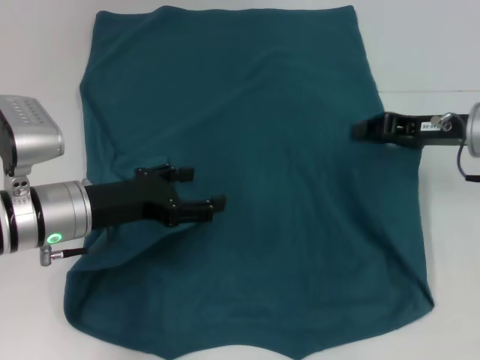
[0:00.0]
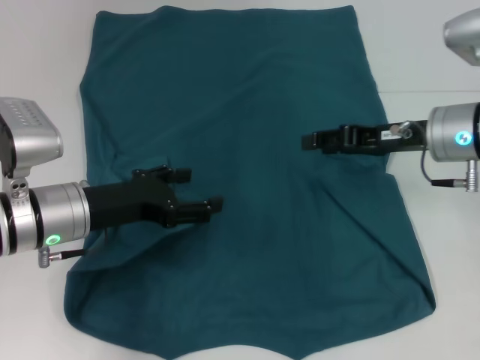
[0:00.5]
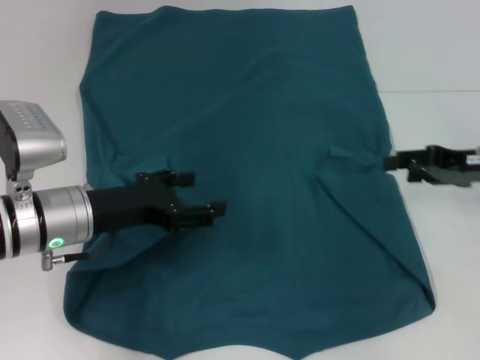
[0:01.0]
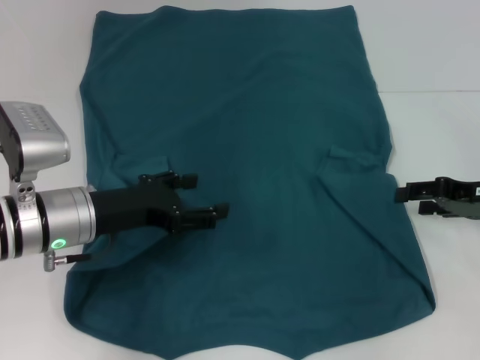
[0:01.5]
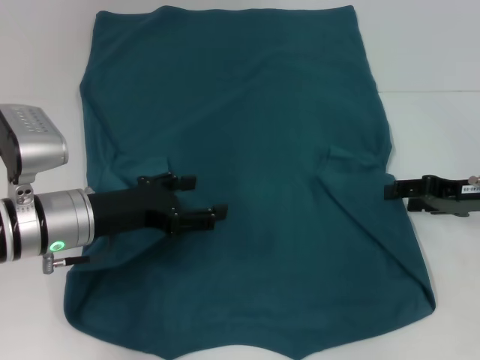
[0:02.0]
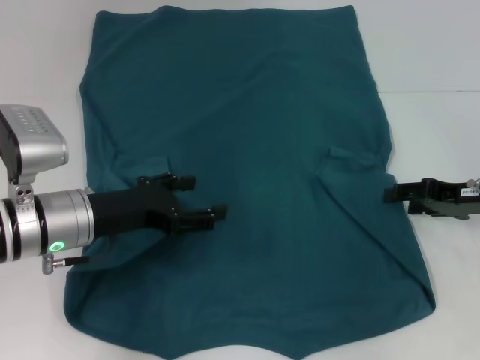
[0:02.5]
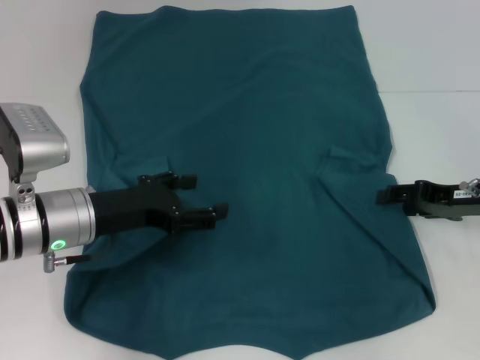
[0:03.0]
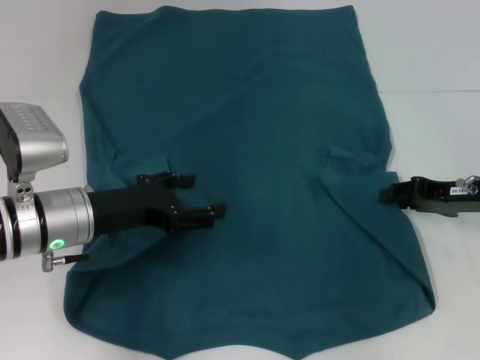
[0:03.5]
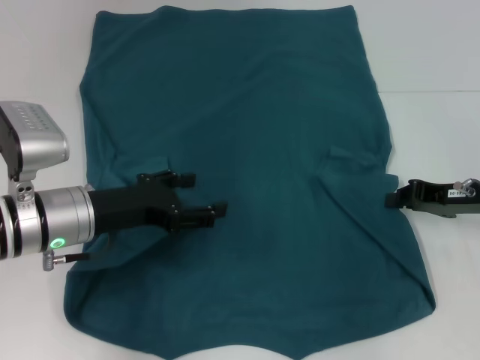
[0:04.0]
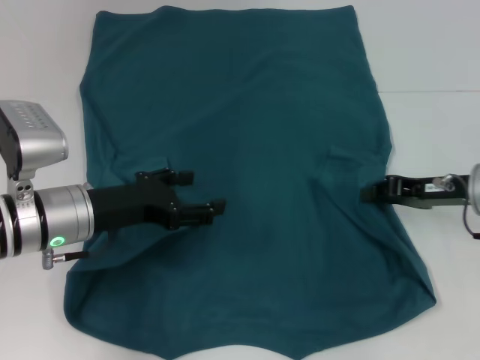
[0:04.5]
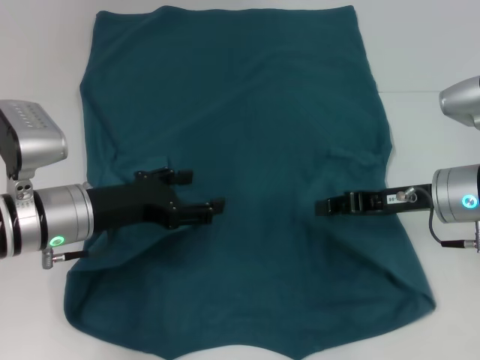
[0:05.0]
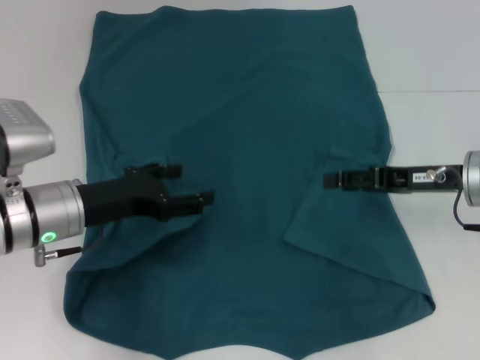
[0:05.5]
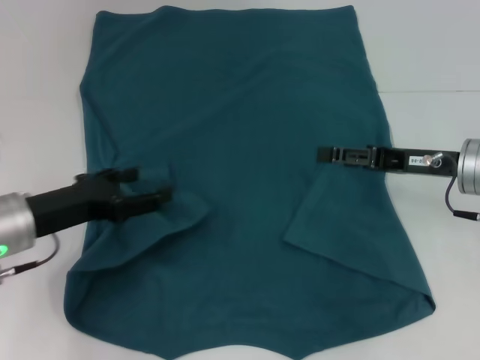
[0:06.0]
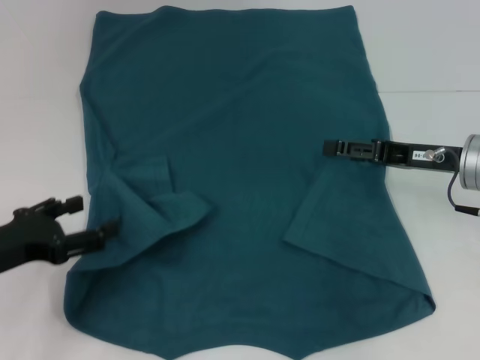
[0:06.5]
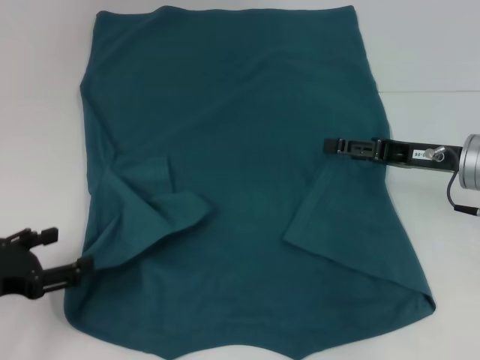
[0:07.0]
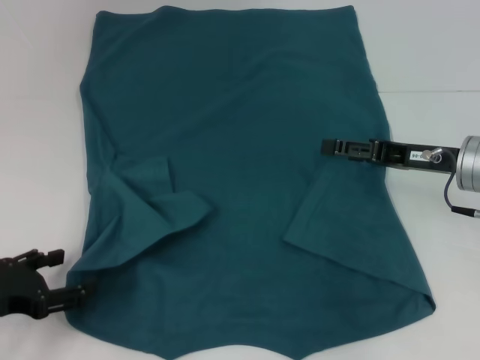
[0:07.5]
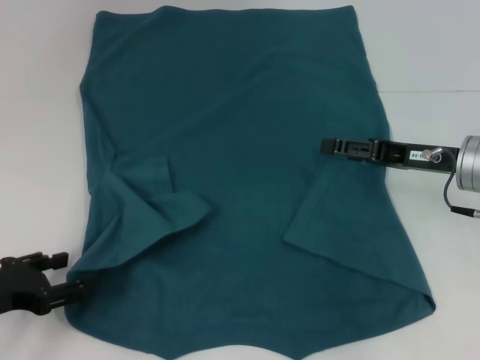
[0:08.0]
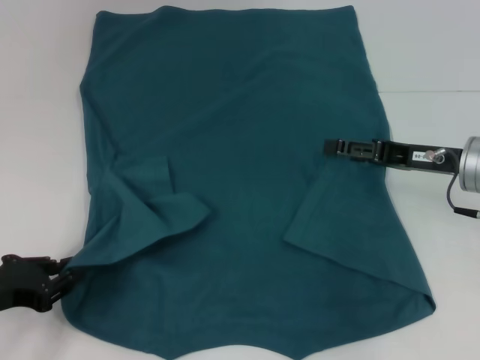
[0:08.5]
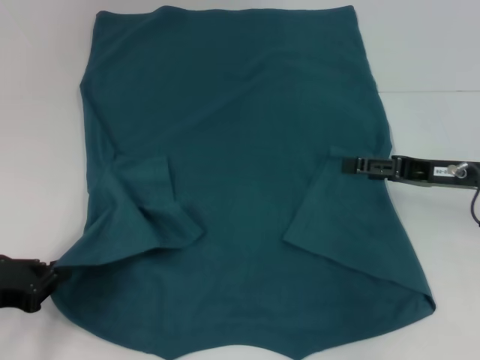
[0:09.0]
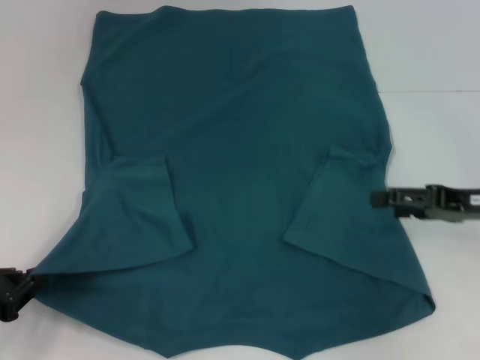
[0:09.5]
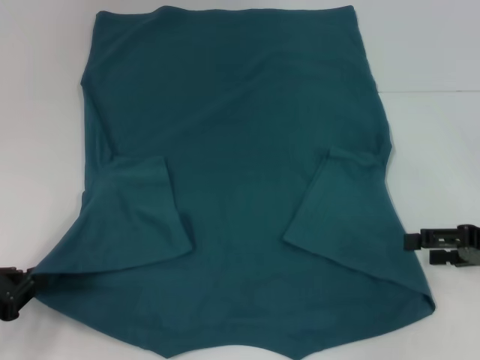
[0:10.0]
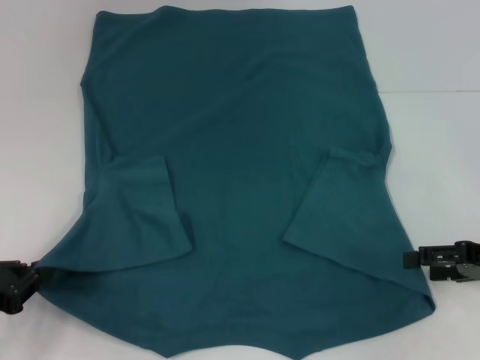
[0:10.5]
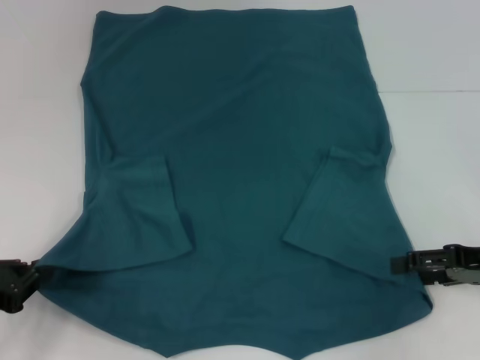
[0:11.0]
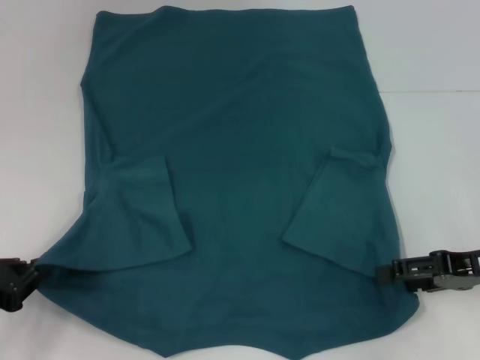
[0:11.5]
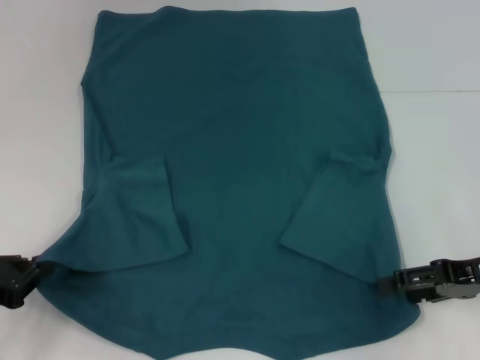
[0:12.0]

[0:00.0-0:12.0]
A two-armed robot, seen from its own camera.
Step, 0:00.0 to 0:05.5: Fold the bottom right sleeve to the right.
Step, 0:06.0 to 0:09.0: Grab the bottom left corner with your left hand.
0:00.0 to 0:02.0: The right gripper changes place by approximately 5 cm, and opens.
0:02.0 to 0:04.0: The right gripper closes up.
0:04.0 to 0:06.0: The left gripper moves roughly 5 cm, while the right gripper opens up.
0:06.0 to 0:08.0: The left gripper shifts some 10 cm backward and to the left.
0:08.0 to 0:10.0: The right gripper heads to the right and backward, covering about 10 cm, while the left gripper closes its fingers.
0:10.0 to 0:12.0: The grippers move only a little.

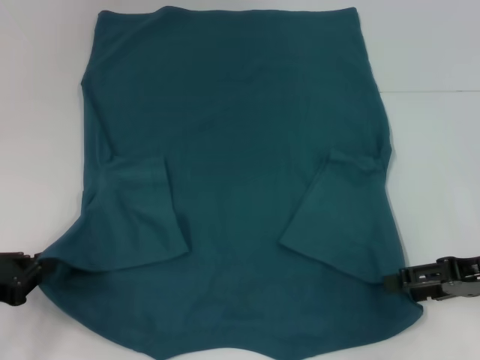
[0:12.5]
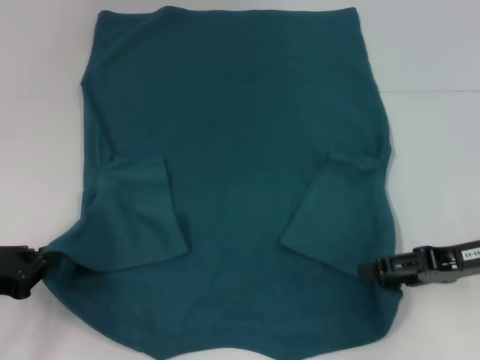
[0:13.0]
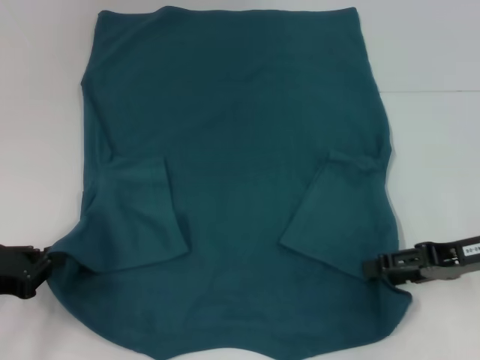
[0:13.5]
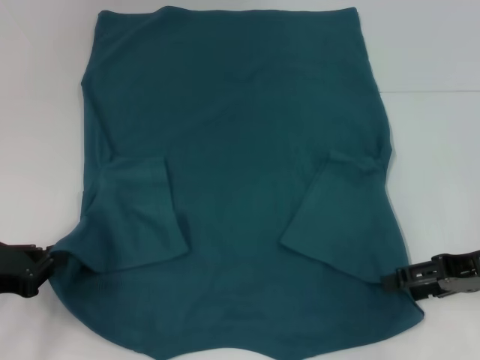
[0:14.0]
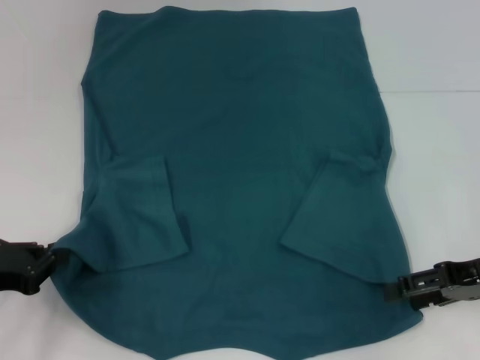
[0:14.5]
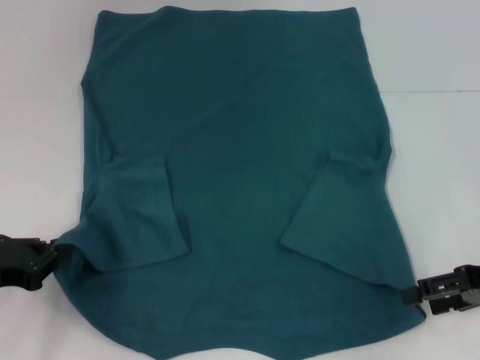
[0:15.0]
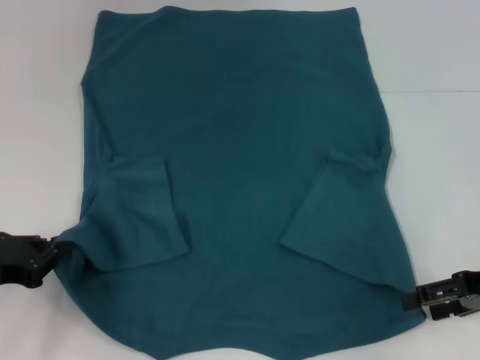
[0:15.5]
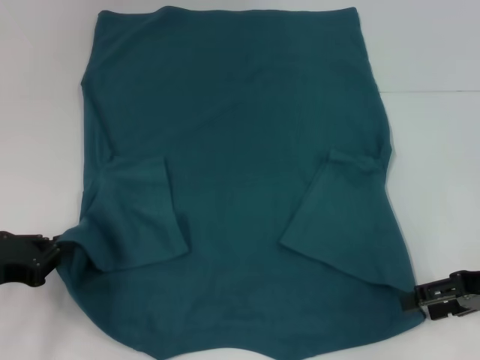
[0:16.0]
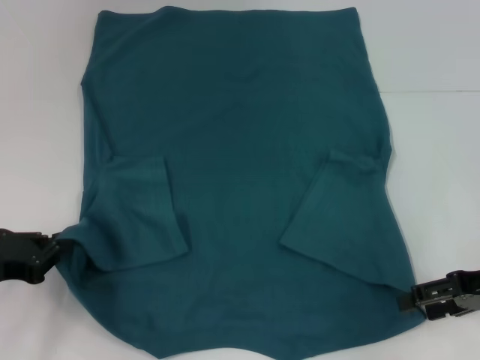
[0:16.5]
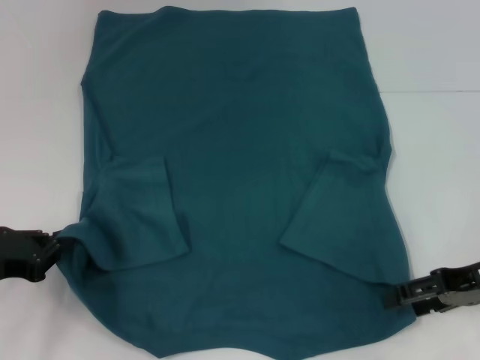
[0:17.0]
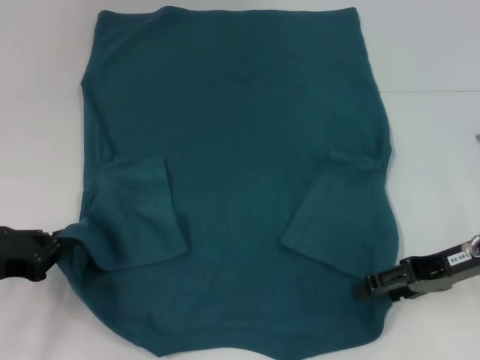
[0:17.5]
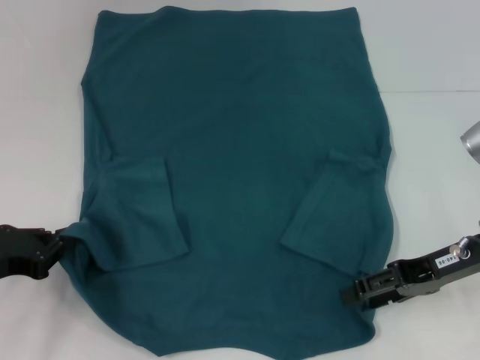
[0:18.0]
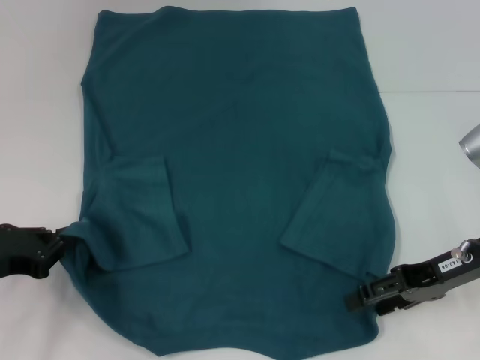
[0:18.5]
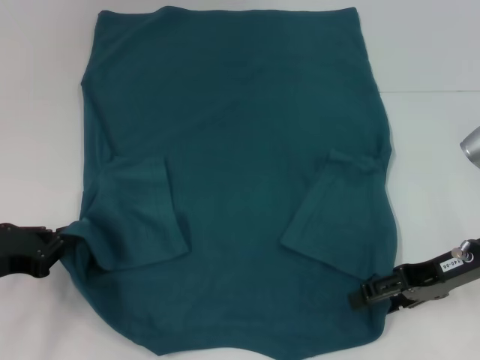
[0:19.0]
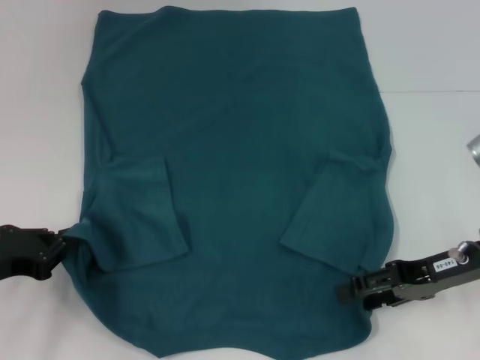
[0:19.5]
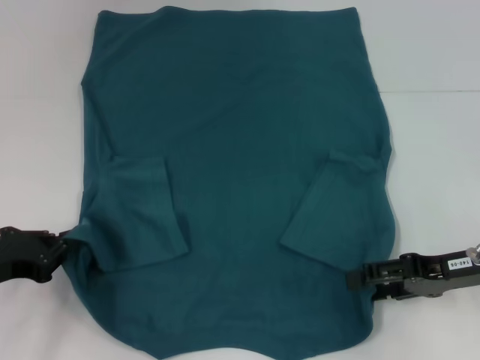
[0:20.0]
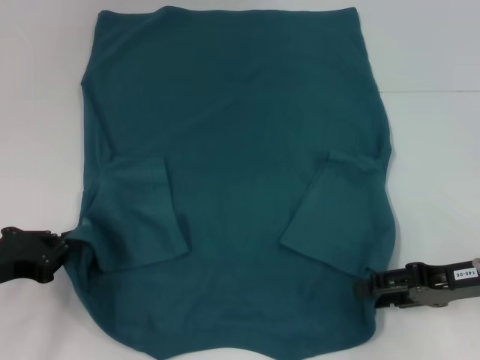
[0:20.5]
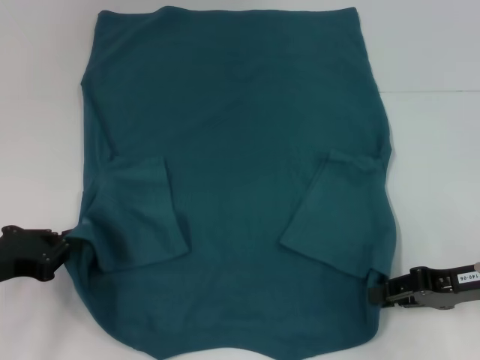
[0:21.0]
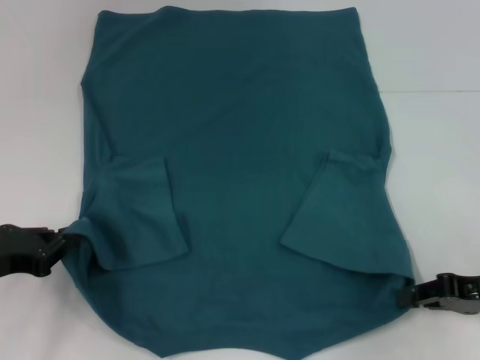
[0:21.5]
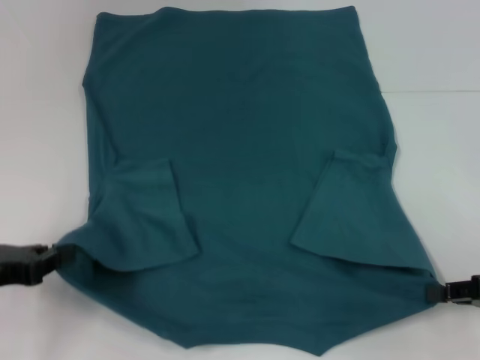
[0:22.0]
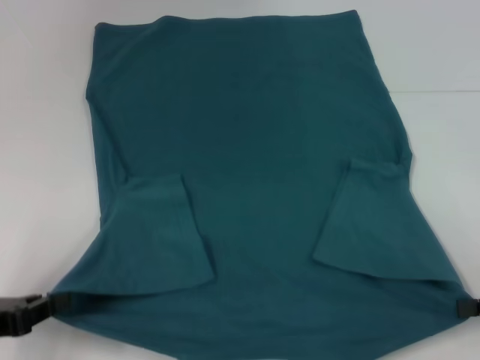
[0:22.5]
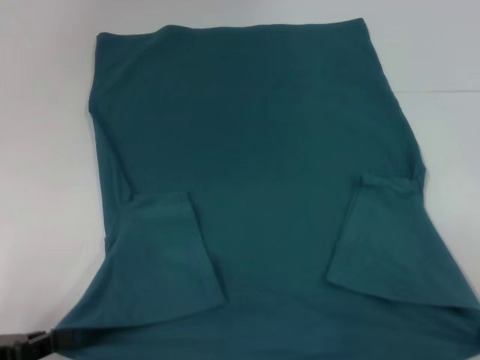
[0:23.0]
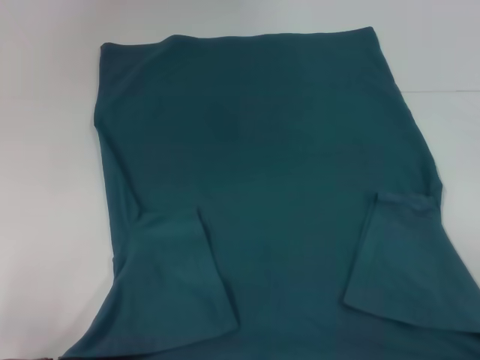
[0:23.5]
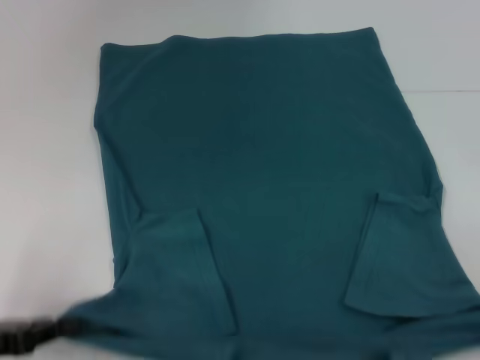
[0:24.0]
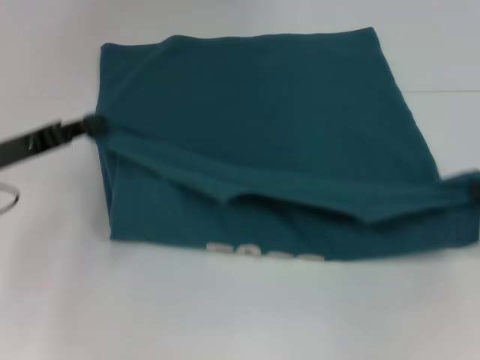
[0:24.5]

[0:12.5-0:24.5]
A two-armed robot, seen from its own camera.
Step, 0:12.5 to 0:21.5: Grab the bottom right corner with your right hand.
0:12.5 to 0:16.5: The grippers move only a little.
0:16.5 to 0:18.5: The right gripper travels to the left by approximately 5 cm.
0:18.5 to 0:20.5: There are only small adjustments of the grippers.
0:20.5 to 0:22.5: The right gripper is displaced to the right by roughly 10 cm, and closes. Meanwhile the left gripper travels backward by roughly 5 cm.
0:22.5 to 0:24.5: The left gripper heads forward, covering approximately 15 cm; the right gripper heads forward, covering approximately 5 cm.

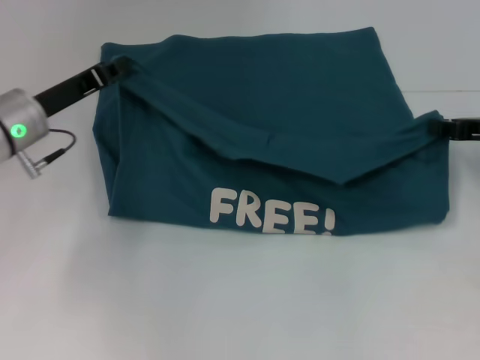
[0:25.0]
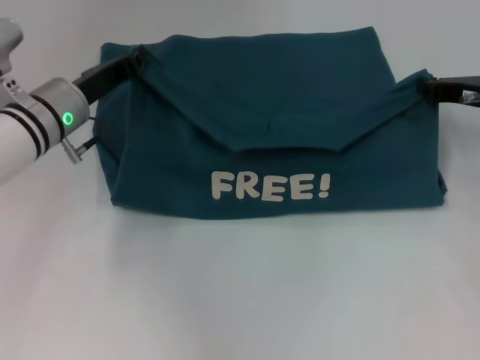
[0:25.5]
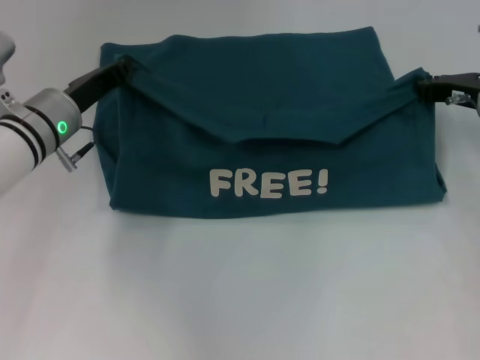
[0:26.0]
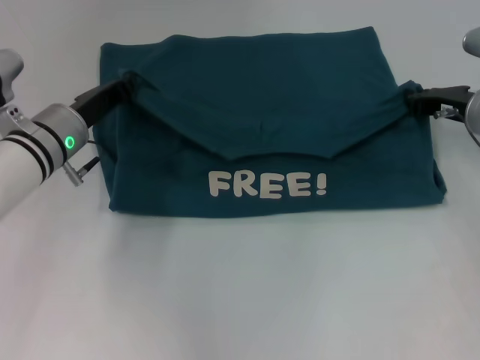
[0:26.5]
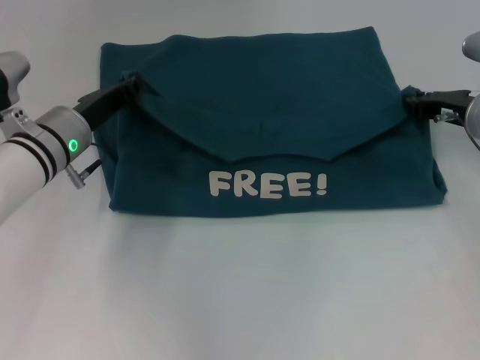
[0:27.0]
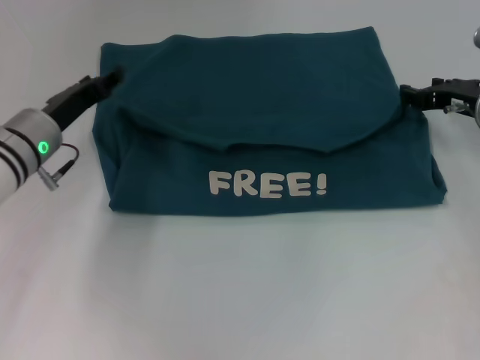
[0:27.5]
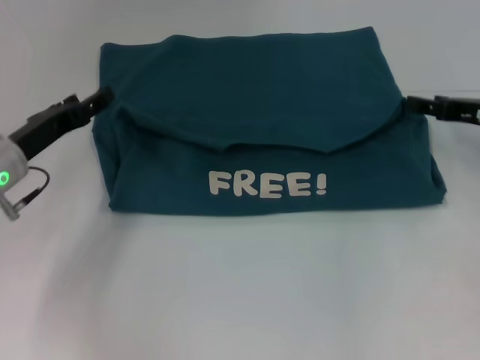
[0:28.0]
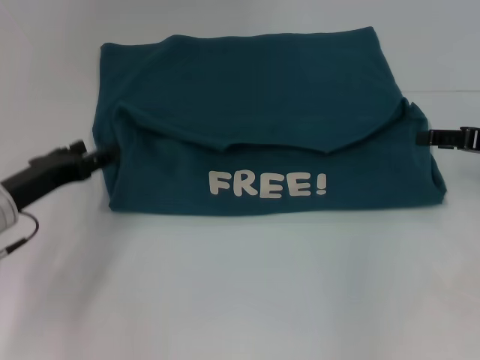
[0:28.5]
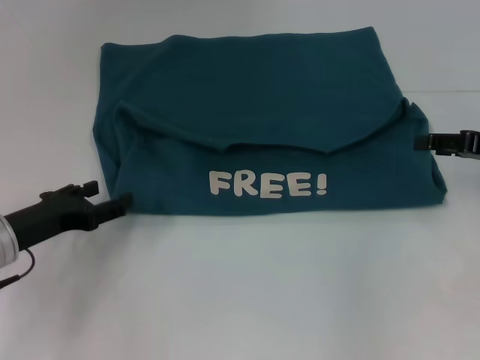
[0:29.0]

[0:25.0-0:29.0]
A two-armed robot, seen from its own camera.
Step, 0:25.0 to 0:28.0: Fold the clothes to the left.
Step, 0:25.0 to 0:28.0: Fold the clothes to the right.
0:25.0 to 0:27.0: The left gripper ends up about 5 cm from where it was; the right gripper heads to the left, covering some 5 cm.
0:27.0 to 0:29.0: The right gripper travels to the right and backward by some 10 cm, and opens. The left gripper shifts approximately 15 cm backward and to the left, and opens its fingers.
